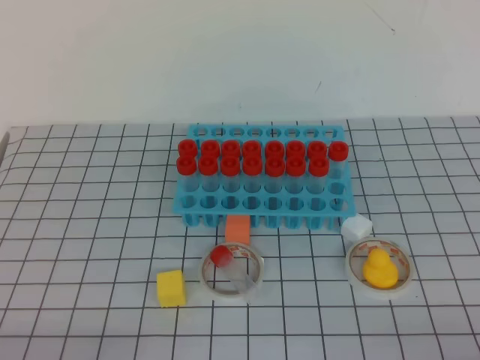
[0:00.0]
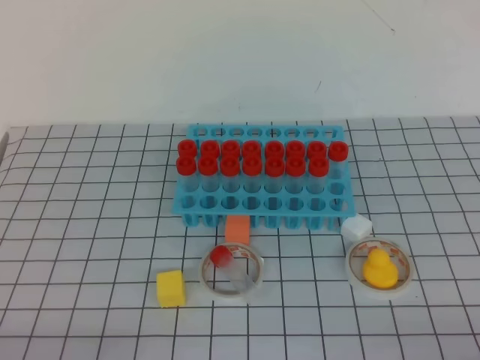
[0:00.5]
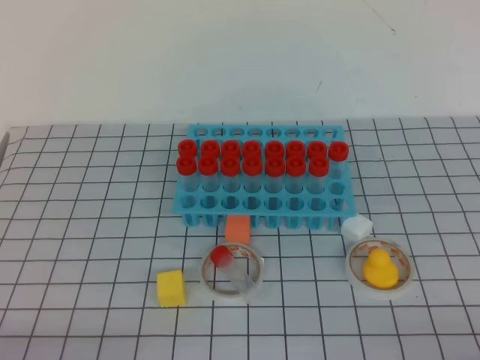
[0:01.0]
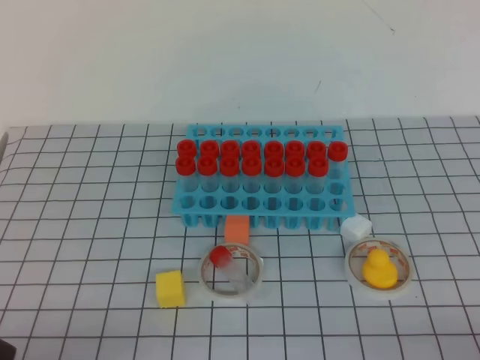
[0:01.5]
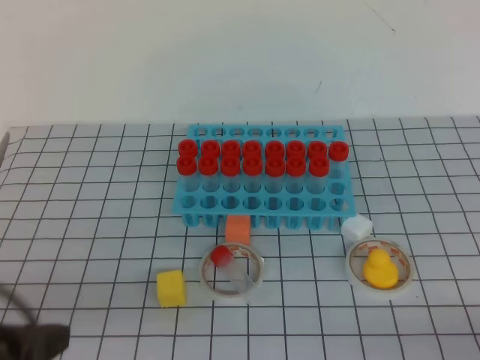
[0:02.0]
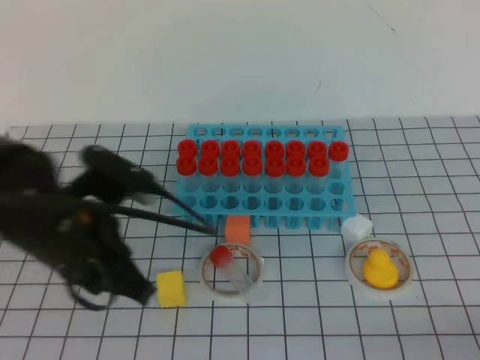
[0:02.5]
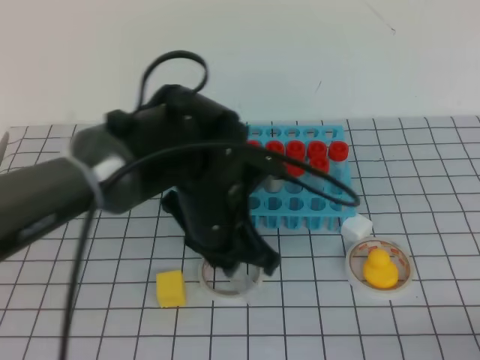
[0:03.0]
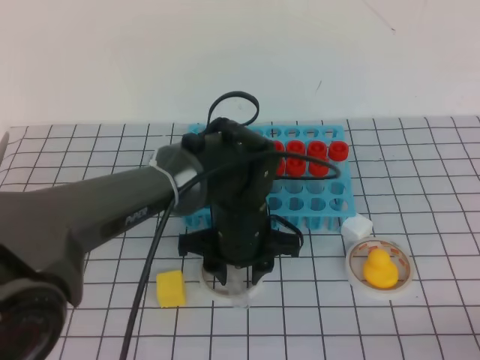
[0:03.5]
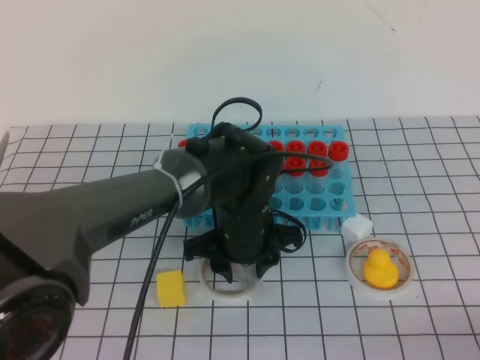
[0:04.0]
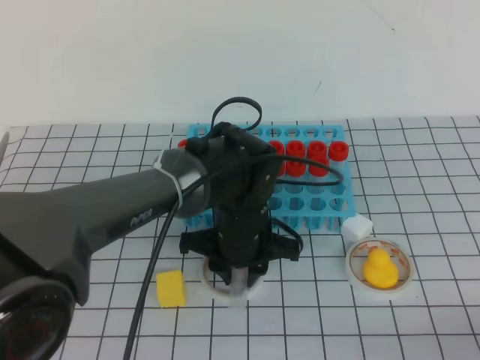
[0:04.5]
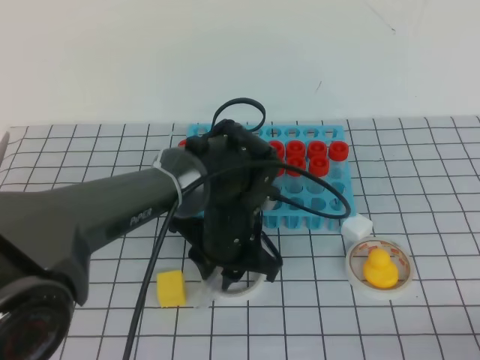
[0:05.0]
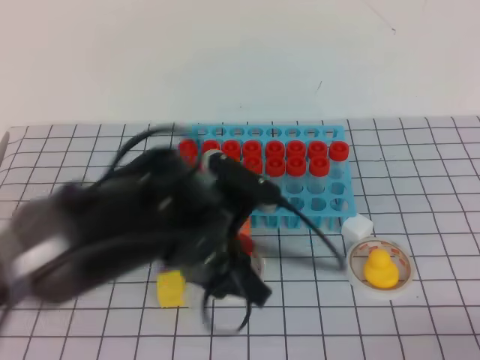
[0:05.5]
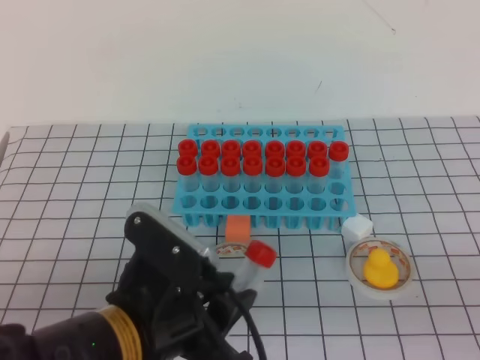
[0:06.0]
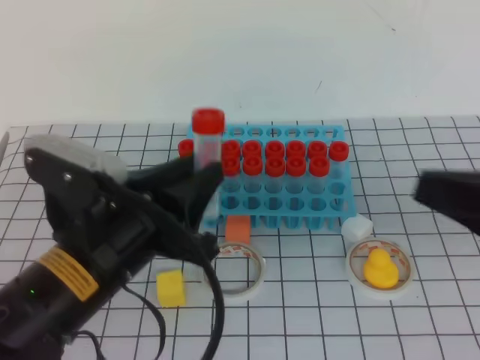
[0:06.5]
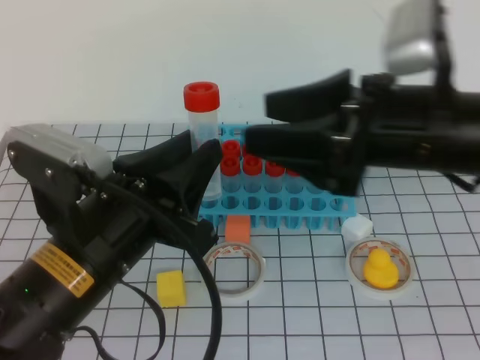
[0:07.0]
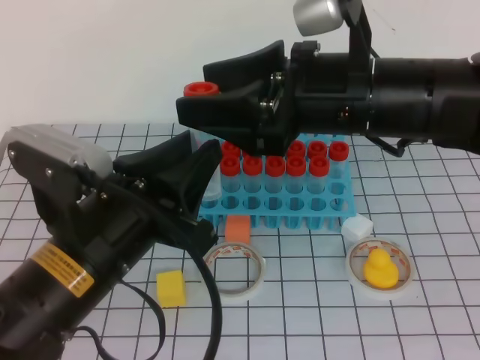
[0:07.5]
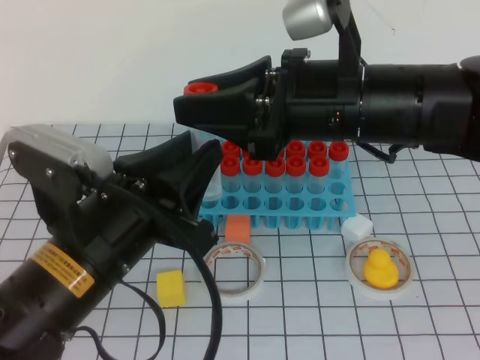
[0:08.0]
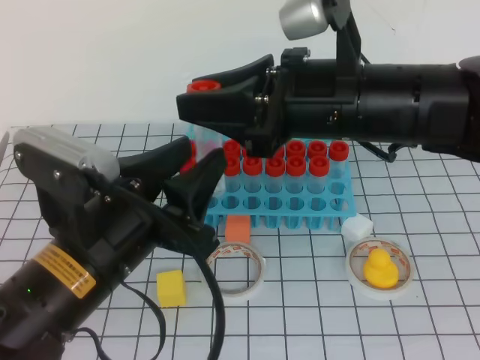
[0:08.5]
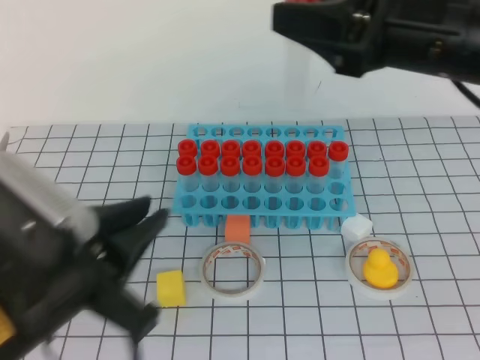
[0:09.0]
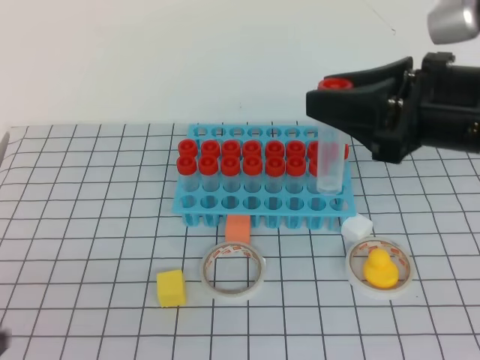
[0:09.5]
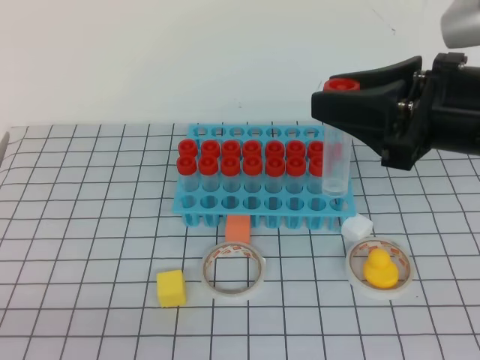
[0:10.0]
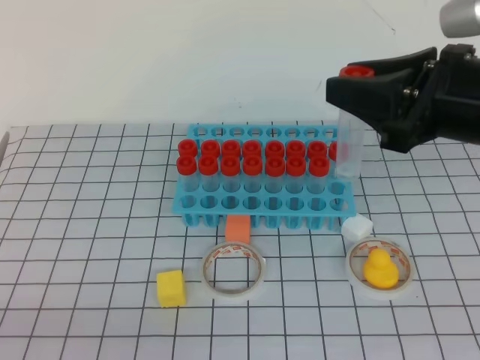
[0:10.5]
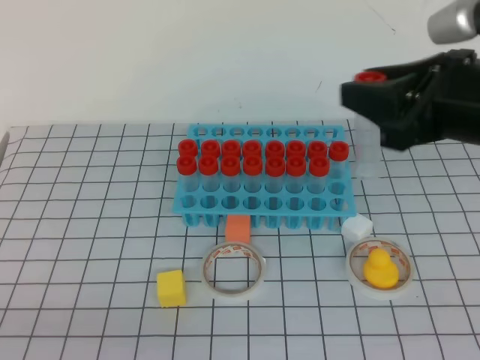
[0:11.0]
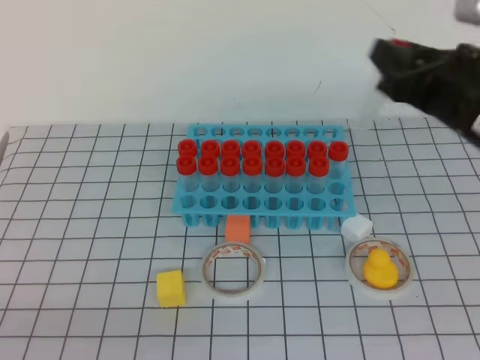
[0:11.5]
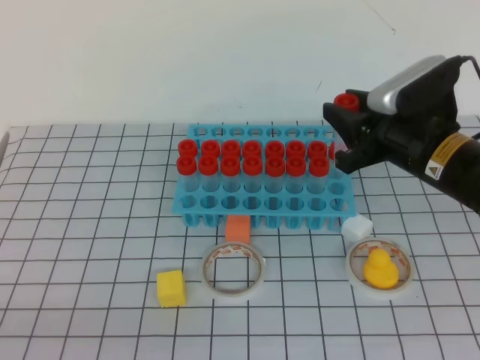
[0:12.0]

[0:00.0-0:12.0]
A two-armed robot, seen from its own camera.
0:00.0 to 0:02.0: The left gripper shifts some 10 cm upward.
0:02.0 to 0:04.0: The left gripper travels forward and to the right by about 35 cm, and opens up.
0:04.0 to 0:06.0: The left gripper heads backward and to the left, covering about 20 cm, and closes, while the right gripper goes roughly 5 cm upward.
0:06.0 to 0:08.0: The right gripper shifts approximately 30 cm forward, to the left and upward, and opens up, while the left gripper moves approximately 5 cm.
0:08.0 to 0:10.0: The left gripper is displaced backward and to the left by about 20 cm, and closes, while the right gripper heads to the right, covering some 10 cm.
0:10.0 to 0:12.0: The right gripper shifts approximately 15 cm downward and forward.

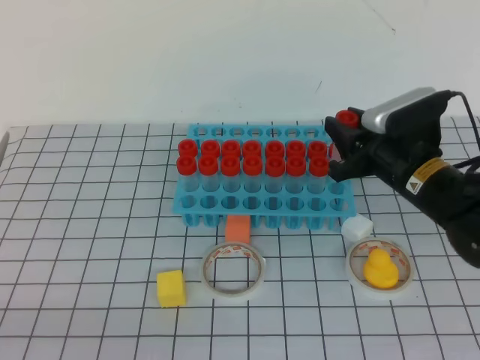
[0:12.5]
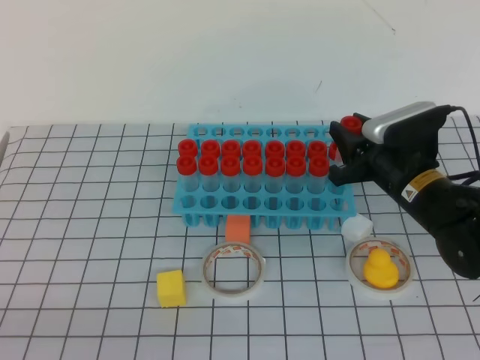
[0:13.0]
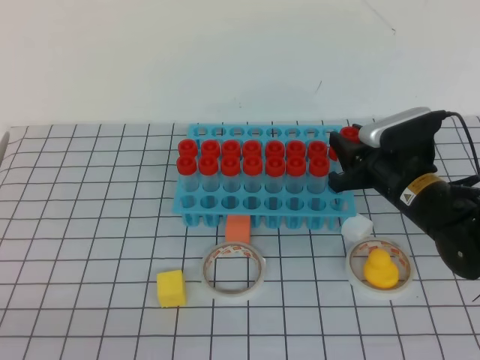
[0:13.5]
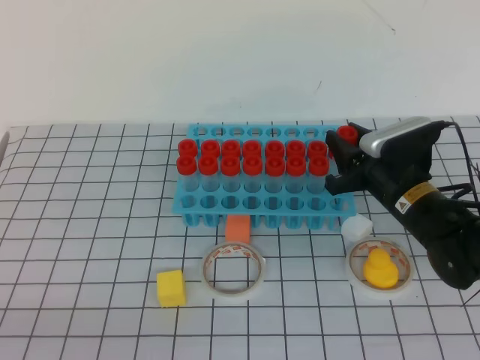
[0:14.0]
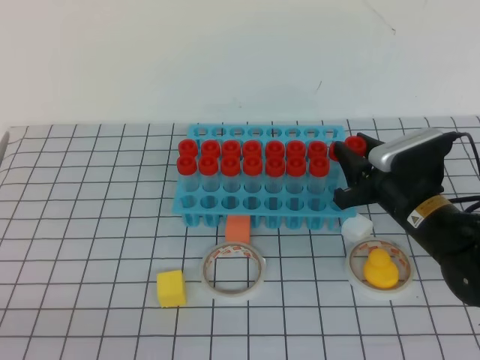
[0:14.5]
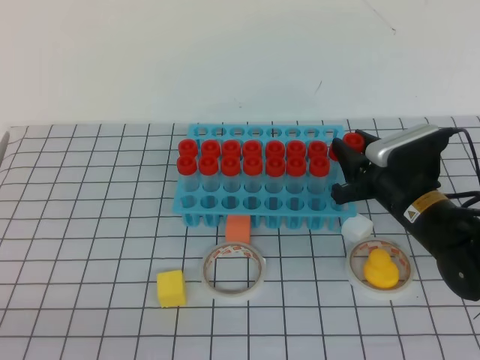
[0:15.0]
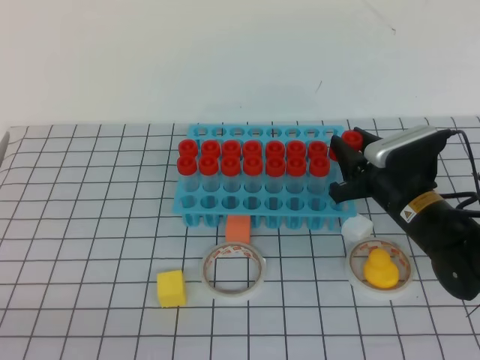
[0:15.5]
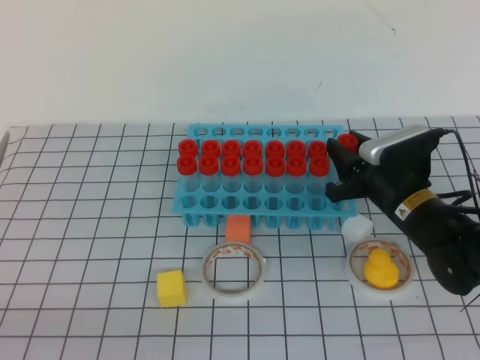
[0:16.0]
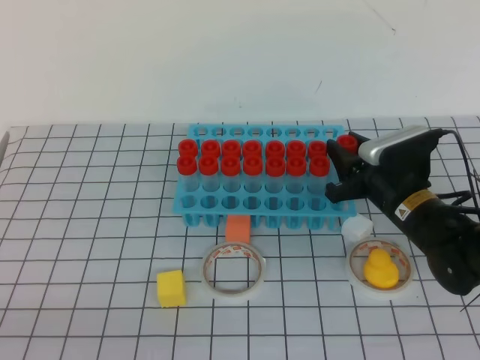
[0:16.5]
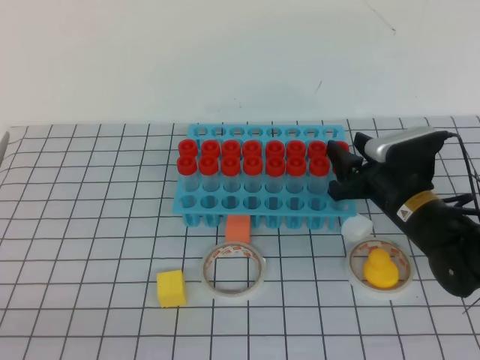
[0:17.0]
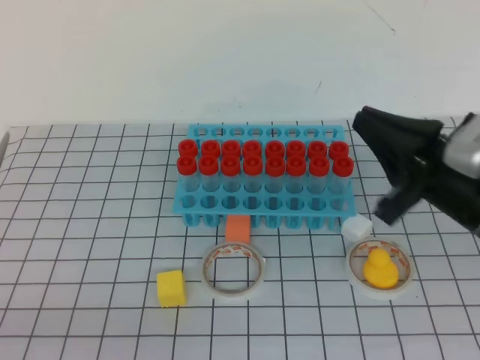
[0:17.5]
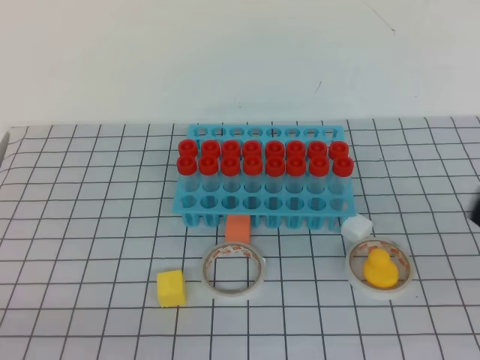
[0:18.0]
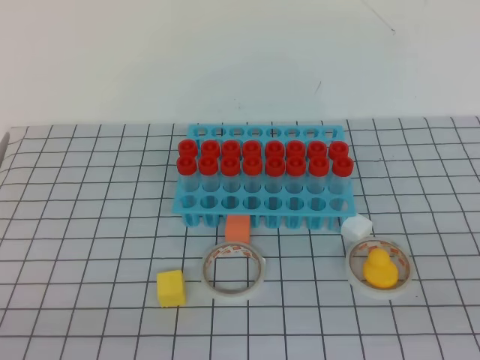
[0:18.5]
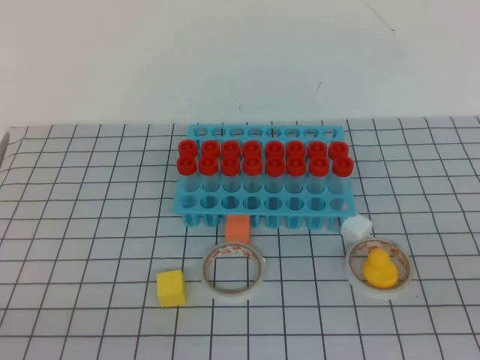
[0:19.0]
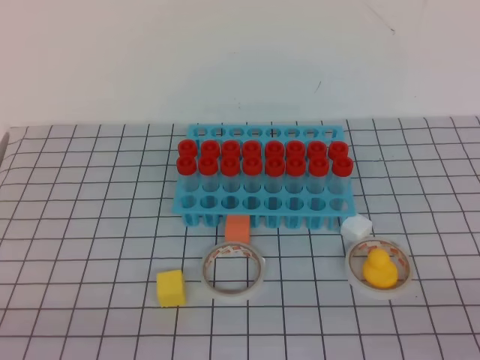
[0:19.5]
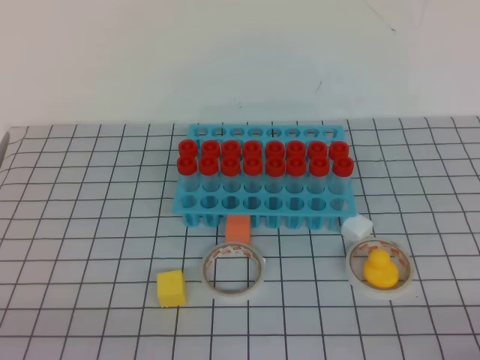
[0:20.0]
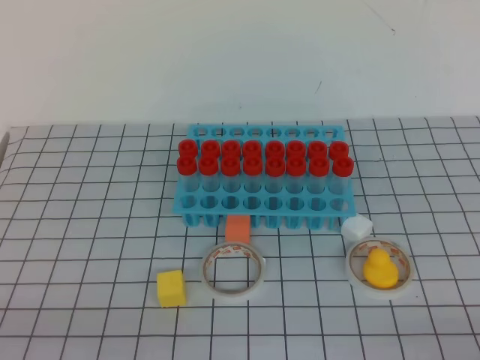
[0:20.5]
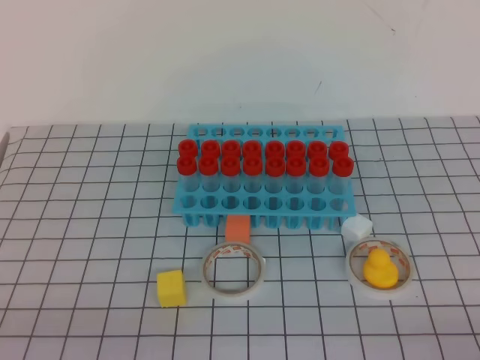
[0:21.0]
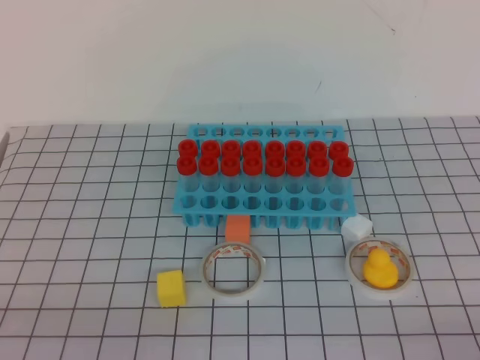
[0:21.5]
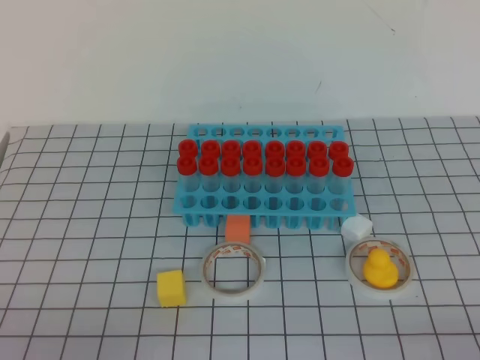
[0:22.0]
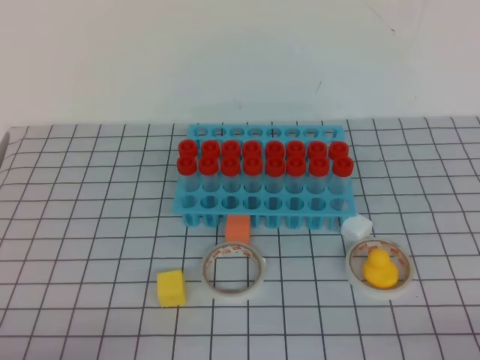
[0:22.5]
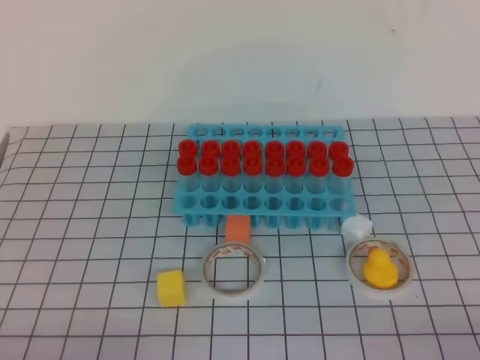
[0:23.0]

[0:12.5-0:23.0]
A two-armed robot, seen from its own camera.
0:12.5 to 0:14.5: The right gripper is displaced downward by roughly 5 cm.
0:14.5 to 0:16.5: The grippers stay close to where they were, moving slightly.
0:16.5 to 0:19.0: The right gripper travels backward and upward by about 35 cm, and closes.

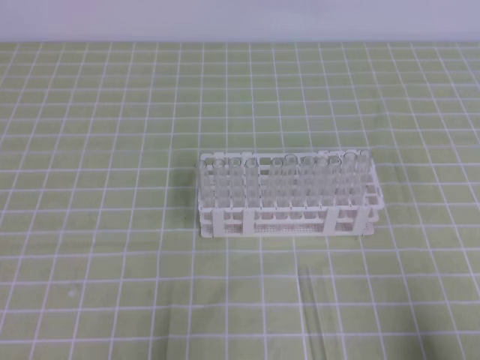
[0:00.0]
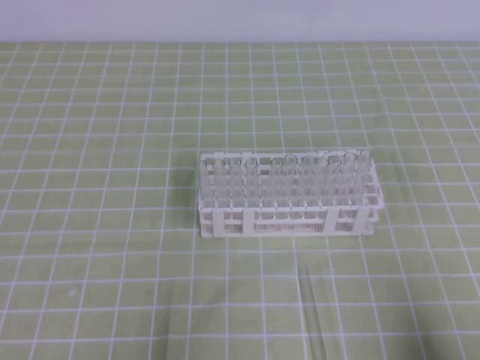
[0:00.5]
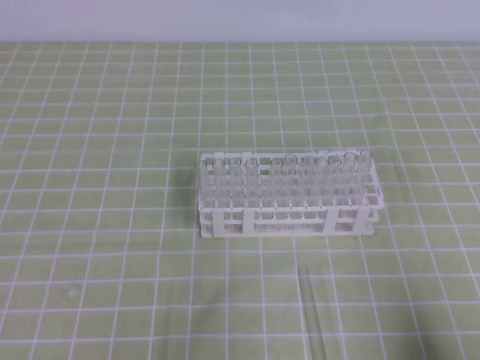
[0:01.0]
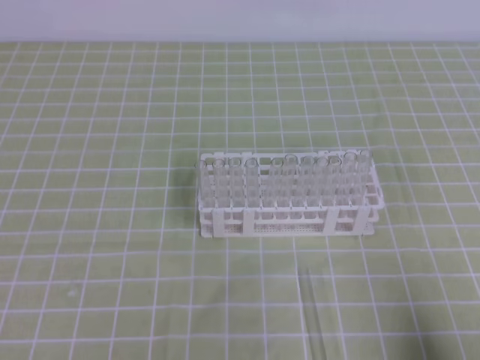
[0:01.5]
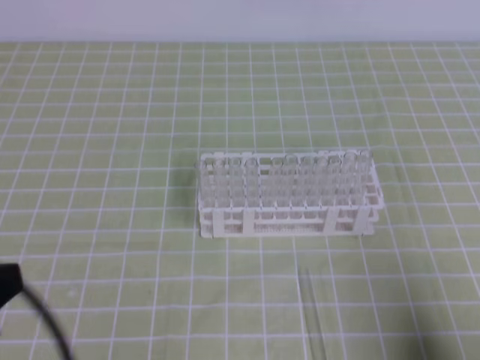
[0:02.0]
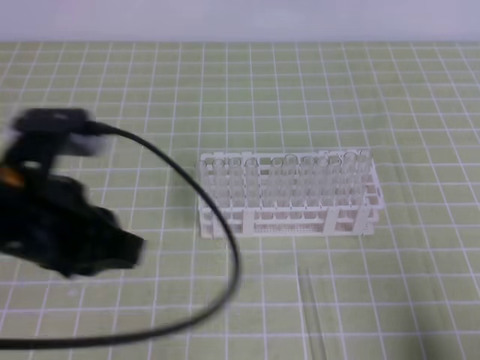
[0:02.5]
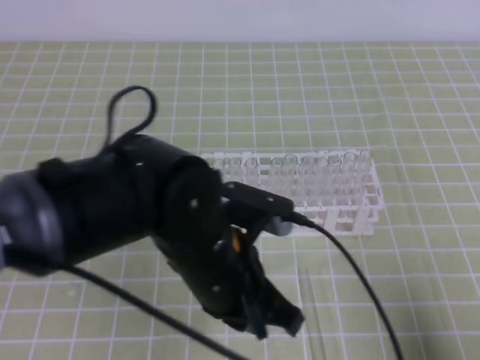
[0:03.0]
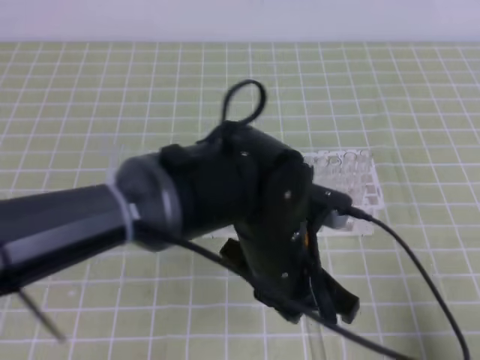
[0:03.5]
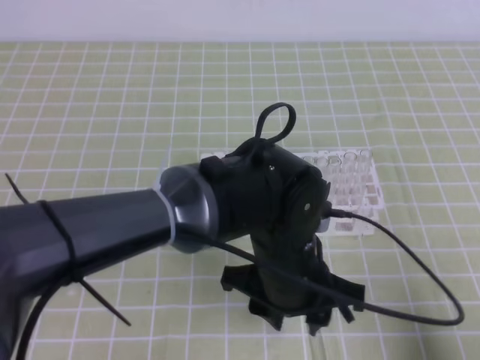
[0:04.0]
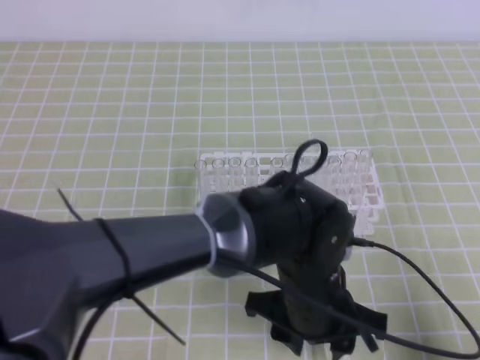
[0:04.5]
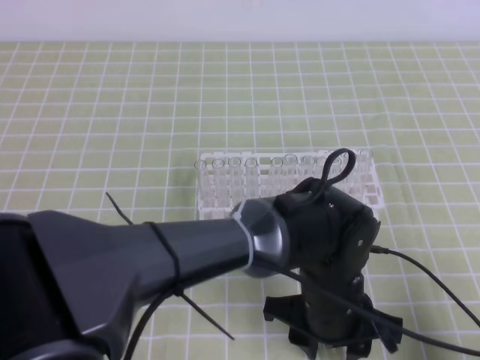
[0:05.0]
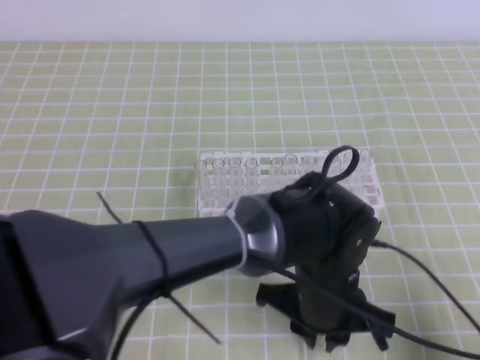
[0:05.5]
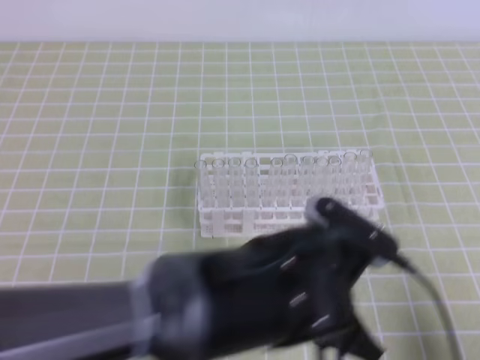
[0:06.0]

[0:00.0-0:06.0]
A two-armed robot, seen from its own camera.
0:00.0 to 0:02.0: The left gripper goes approximately 15 cm upward.
0:02.0 to 0:04.0: The left gripper shifts approximately 30 cm to the right and forward, and opens up.
0:04.0 to 0:06.0: The left gripper shifts by some 5 cm, and closes.
